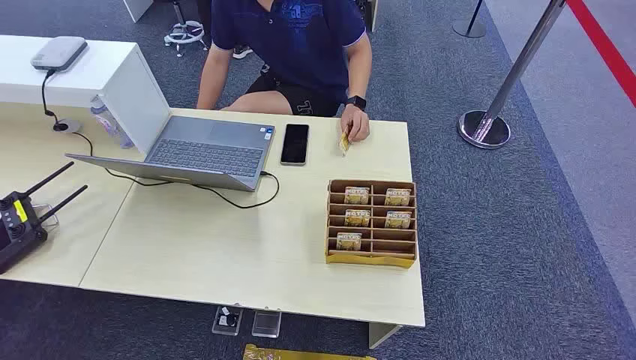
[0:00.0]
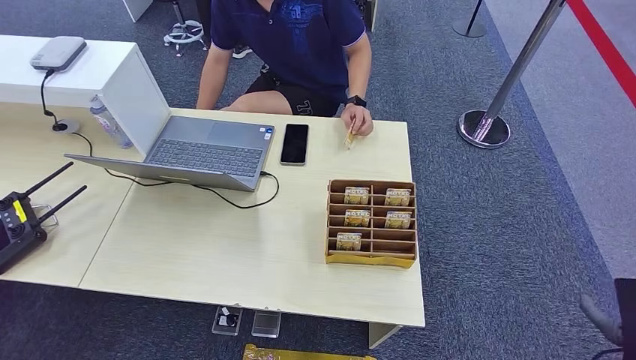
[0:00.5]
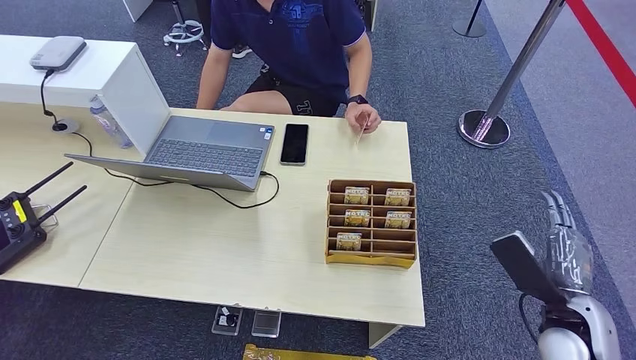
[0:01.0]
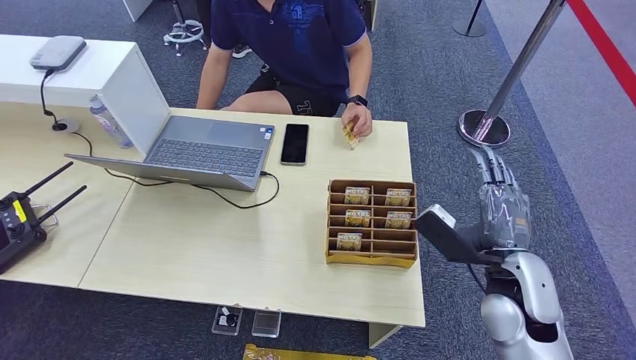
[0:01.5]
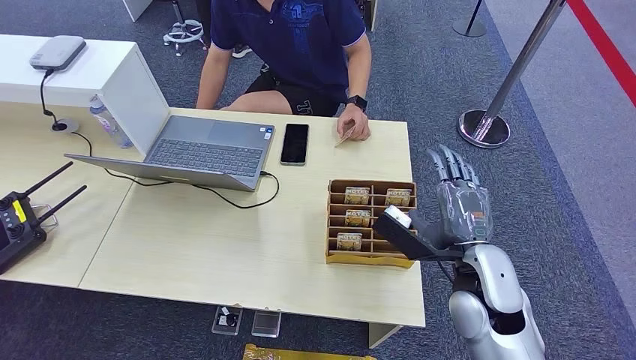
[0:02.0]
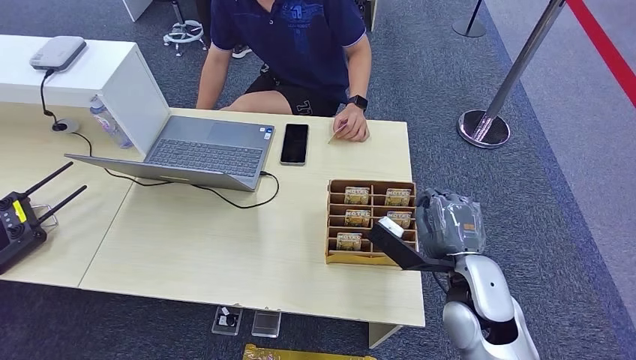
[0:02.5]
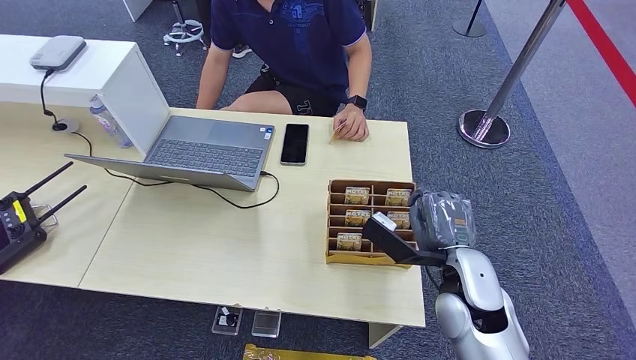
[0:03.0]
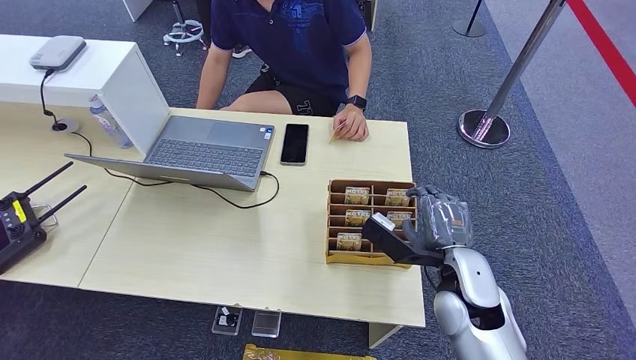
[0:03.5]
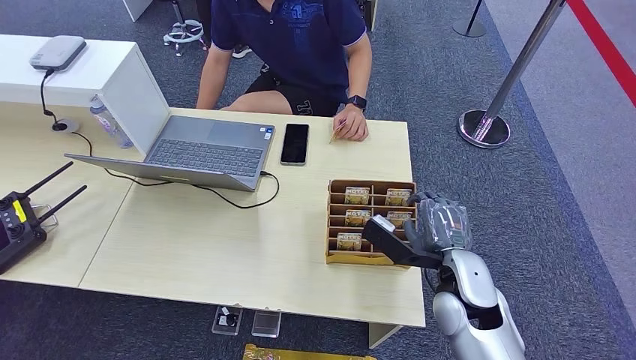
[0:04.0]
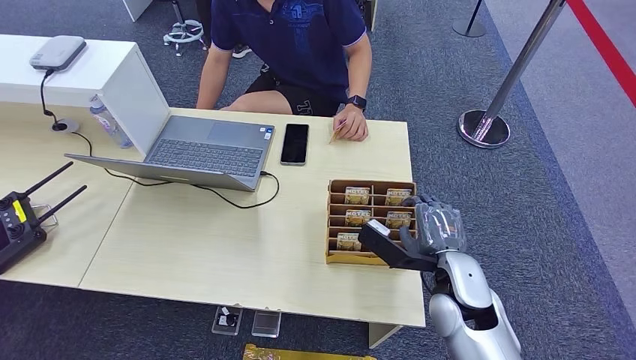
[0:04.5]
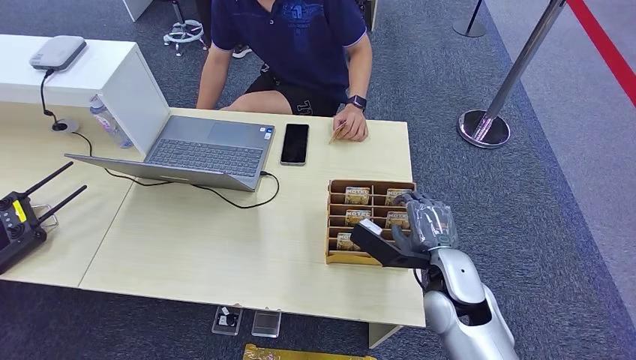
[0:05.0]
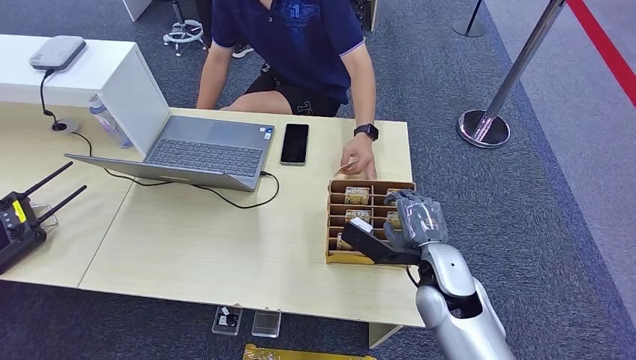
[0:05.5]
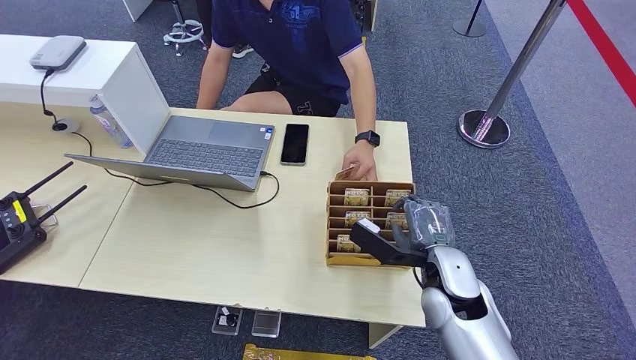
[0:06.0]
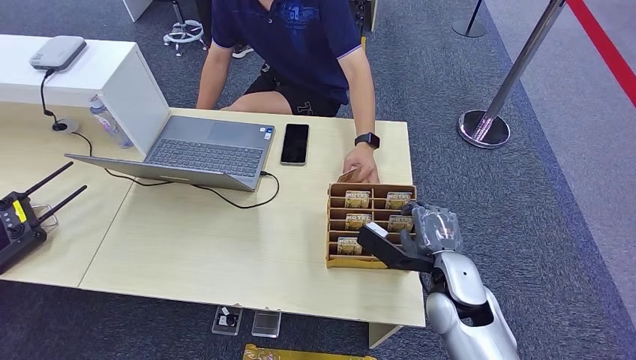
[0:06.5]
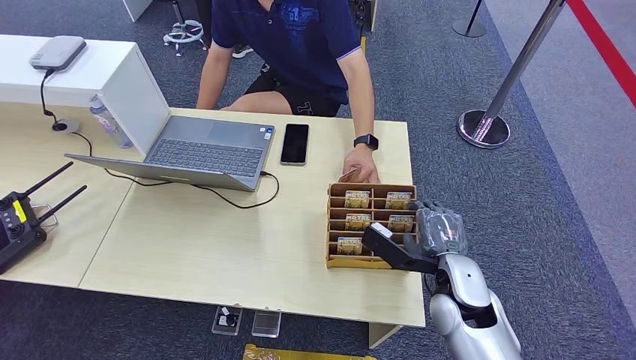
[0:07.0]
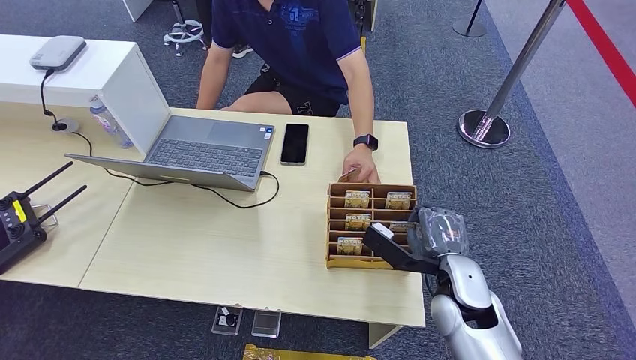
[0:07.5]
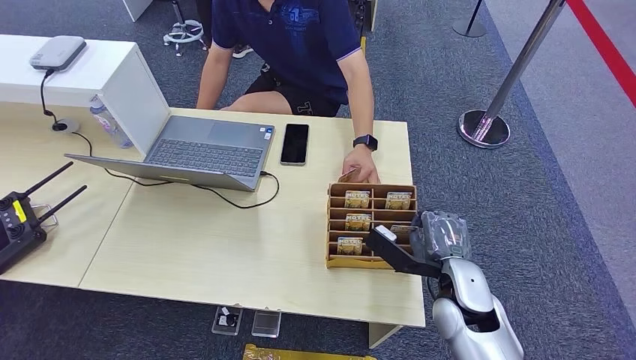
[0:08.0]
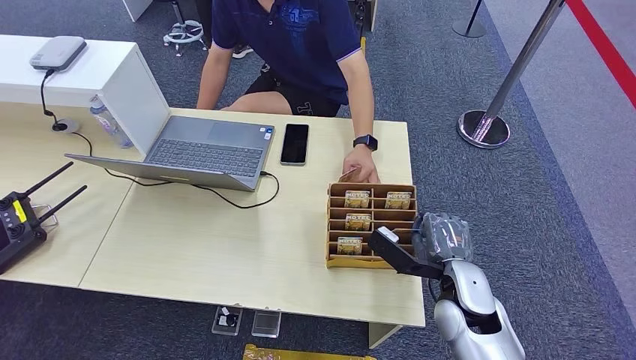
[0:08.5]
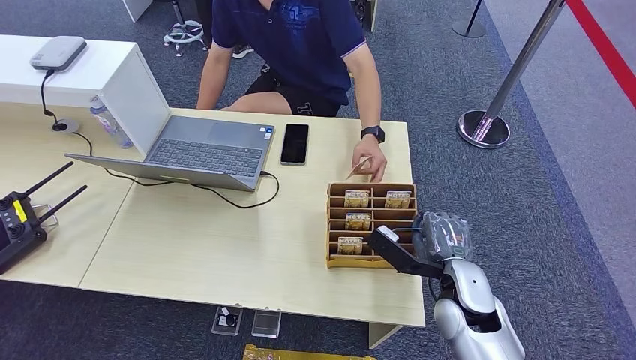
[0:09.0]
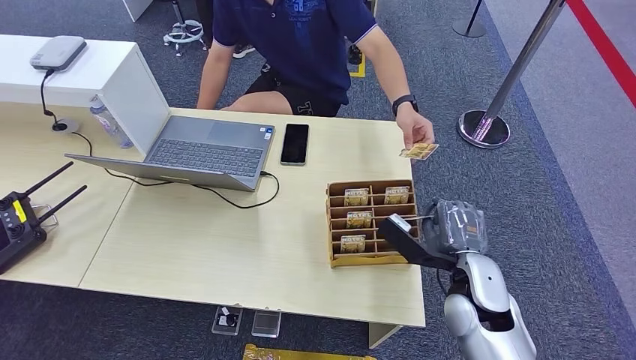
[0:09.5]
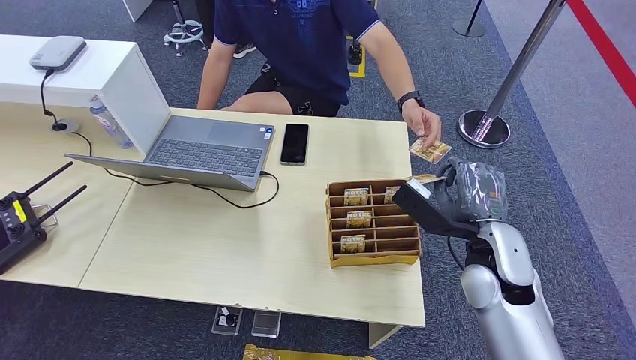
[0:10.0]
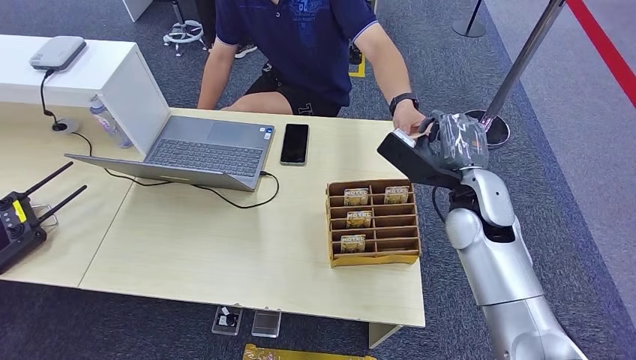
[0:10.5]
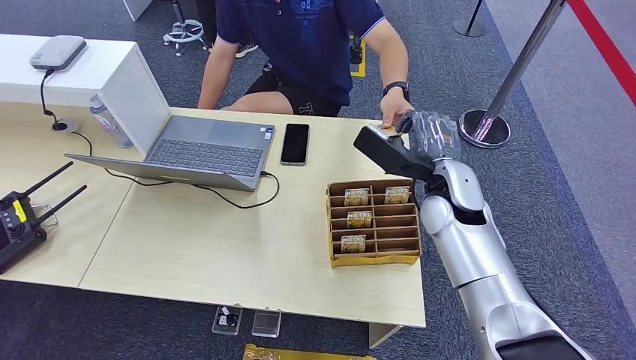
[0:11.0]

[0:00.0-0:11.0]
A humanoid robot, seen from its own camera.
Step, 0:00.0 to 0:09.5: Pick up the room card from the card holder.
Step, 0:10.0 to 0:11.0: Hand the room card to the target.
0:02.0 to 0:03.5: The hands move only a little.
0:03.5 to 0:07.5: There are only small adjustments of the hands.
0:07.5 to 0:09.0: The two hands keep their place.
0:09.0 to 0:11.0: The right hand travels forward and upward by some 15 cm.
